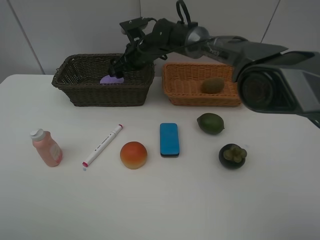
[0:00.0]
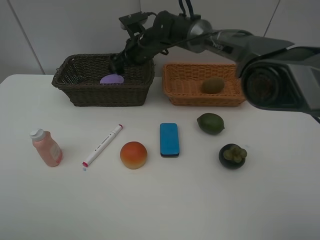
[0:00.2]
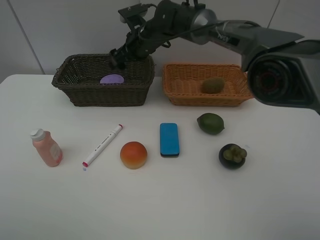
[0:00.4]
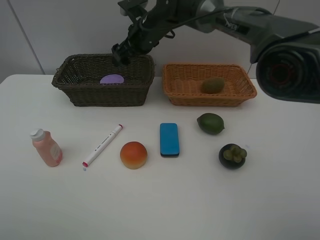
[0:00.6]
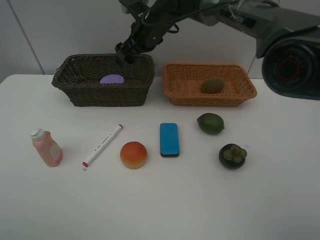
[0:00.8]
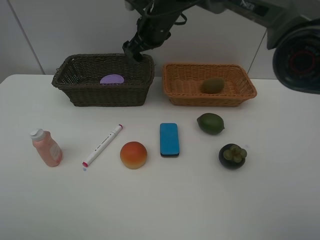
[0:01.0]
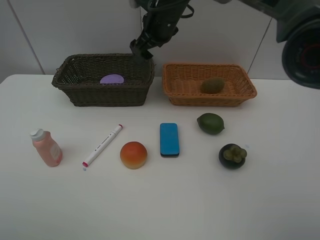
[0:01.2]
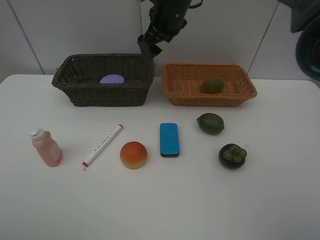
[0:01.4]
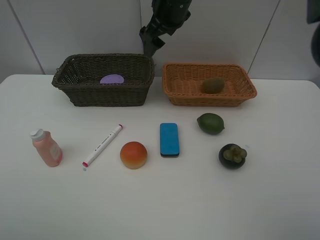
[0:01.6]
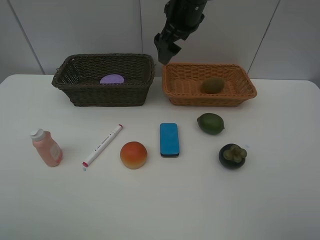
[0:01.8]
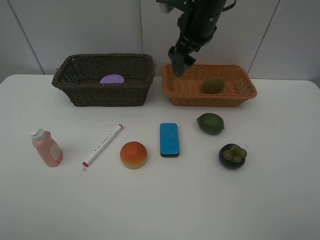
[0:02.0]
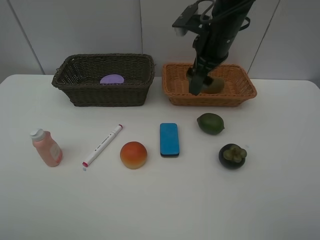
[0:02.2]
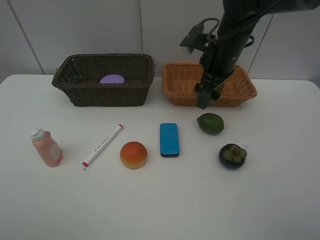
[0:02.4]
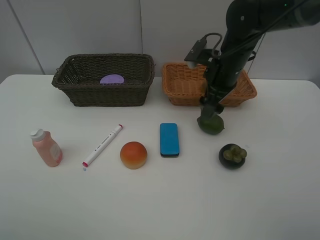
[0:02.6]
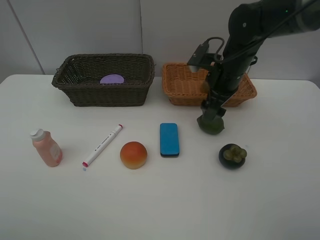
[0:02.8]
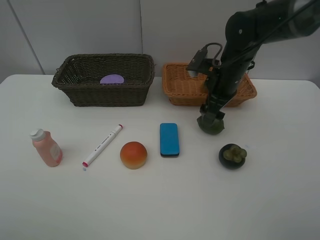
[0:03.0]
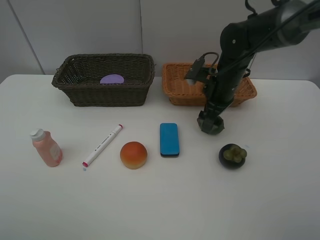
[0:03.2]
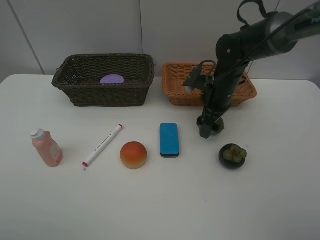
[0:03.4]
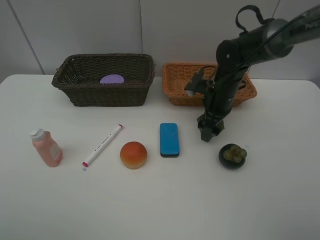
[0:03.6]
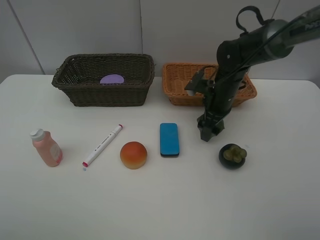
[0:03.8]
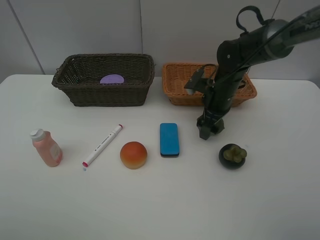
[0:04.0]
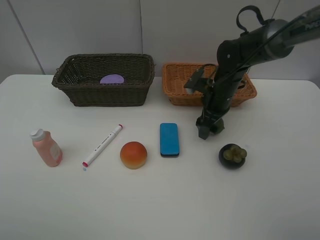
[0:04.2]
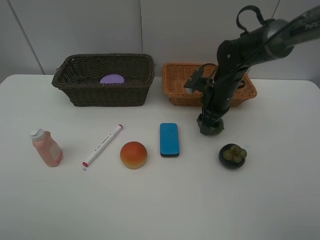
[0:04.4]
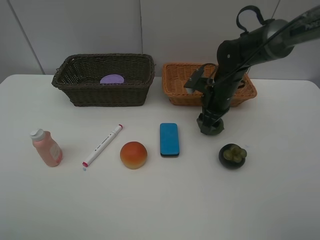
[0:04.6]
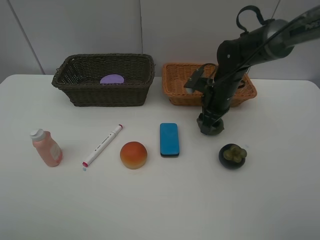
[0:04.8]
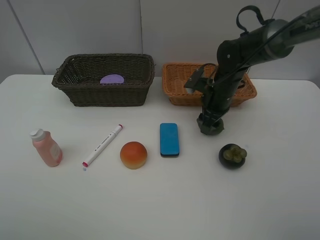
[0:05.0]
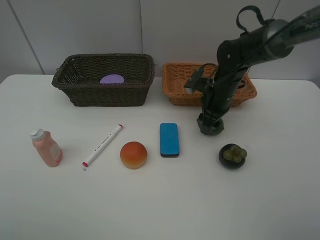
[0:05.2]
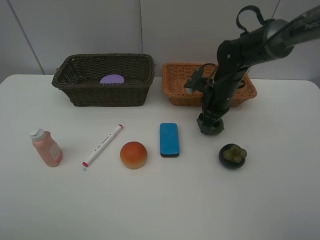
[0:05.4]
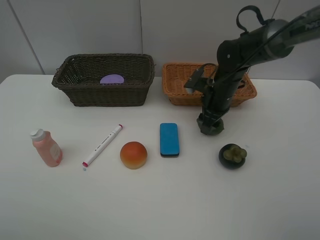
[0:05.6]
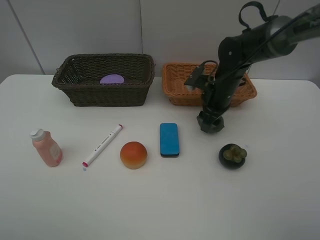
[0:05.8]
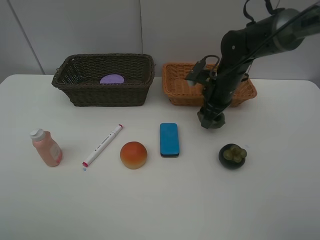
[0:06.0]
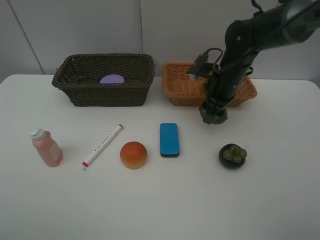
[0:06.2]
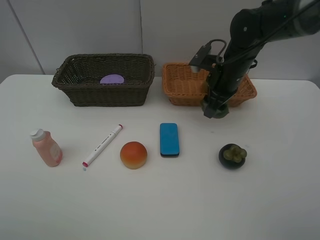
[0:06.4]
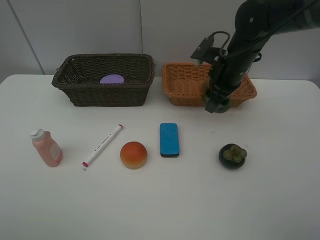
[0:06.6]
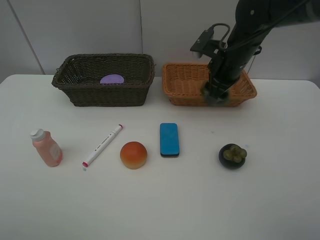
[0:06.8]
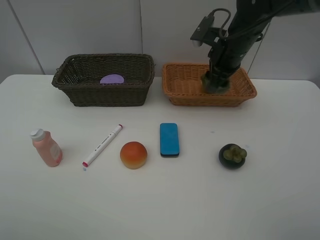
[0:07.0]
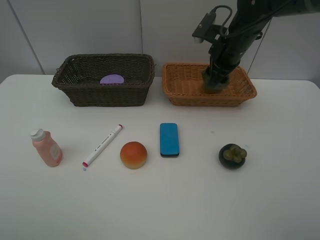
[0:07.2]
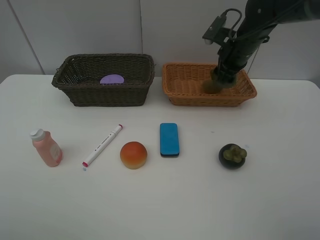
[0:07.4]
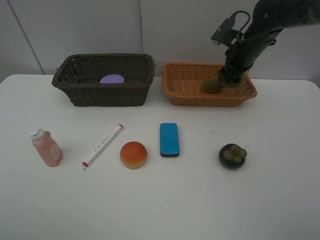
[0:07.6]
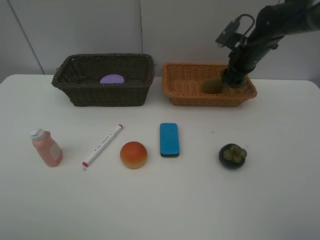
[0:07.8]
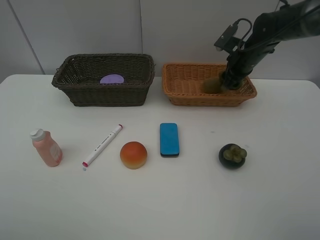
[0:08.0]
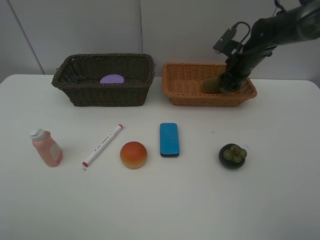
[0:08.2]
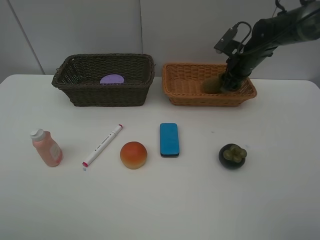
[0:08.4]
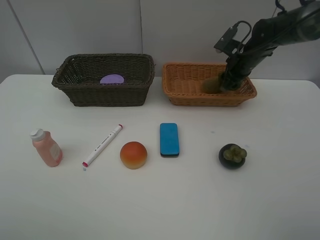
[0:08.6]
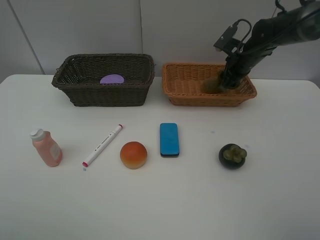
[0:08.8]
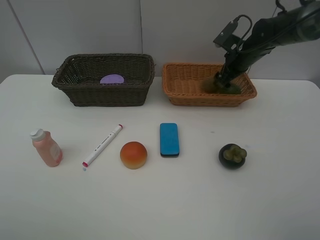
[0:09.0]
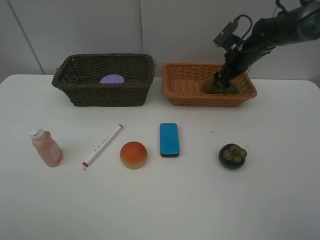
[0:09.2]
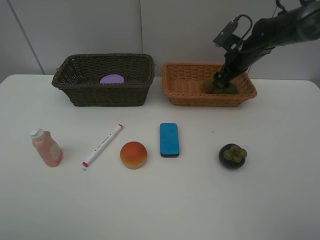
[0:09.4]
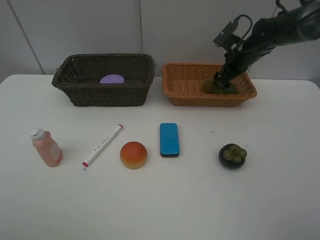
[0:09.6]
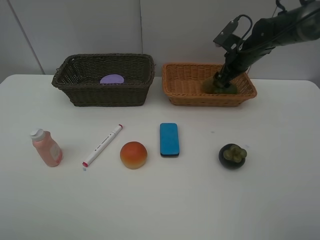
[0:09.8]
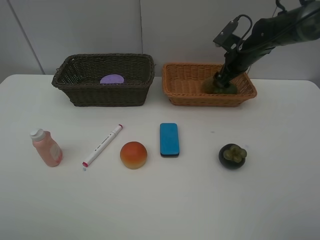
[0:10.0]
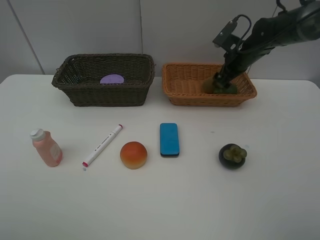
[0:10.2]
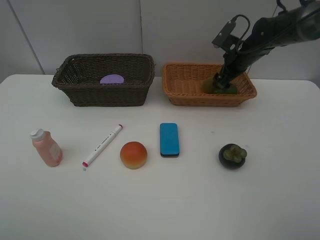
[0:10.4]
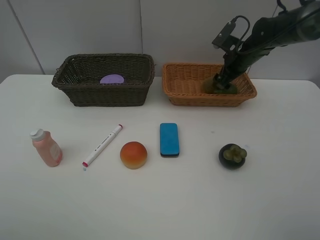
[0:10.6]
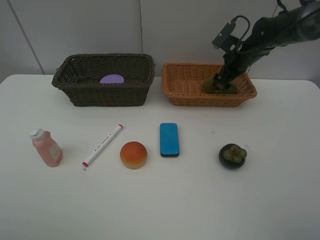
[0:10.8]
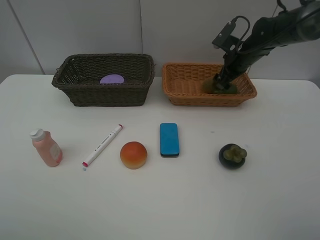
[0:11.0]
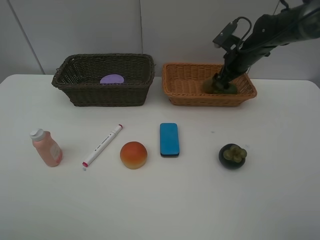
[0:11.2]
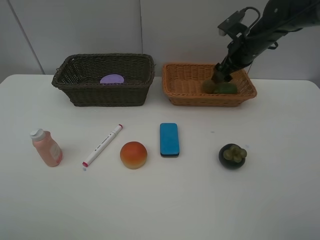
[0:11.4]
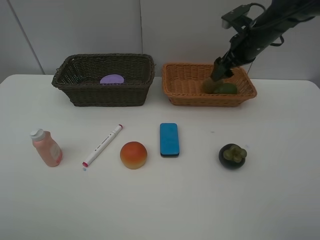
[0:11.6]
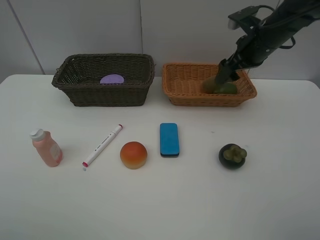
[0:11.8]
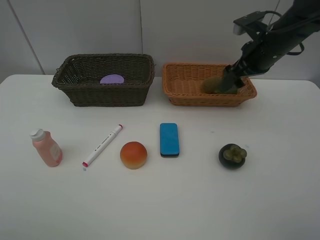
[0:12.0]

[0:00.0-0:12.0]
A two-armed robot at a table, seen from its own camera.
Task of the whole recording: Place multiple objects separately in different baskets.
Step, 0:00.4 to 0:05.8: Pick up the lime with right gripper.
Step, 0:06.0 to 0:11.4: Place the lime in the light basket with right gripper.
0:00.0 to 0:01.6: The right gripper goes some 15 cm upward, to the right and backward.
0:01.6 to 0:03.0: The right gripper travels downward, to the right and backward by some 20 cm.
0:03.0 to 0:04.4: The right gripper closes.
0:04.4 to 0:06.0: The grippers stay close to where they were, moving slightly.
0:06.0 to 0:07.6: The right gripper travels to the right, forward and upward by roughly 10 cm.
0:07.6 to 0:09.0: The right gripper opens.
0:09.0 to 0:10.4: The two grippers keep their place.
0:10.4 to 0:12.0: The right gripper is displaced backward and upward by some 10 cm.

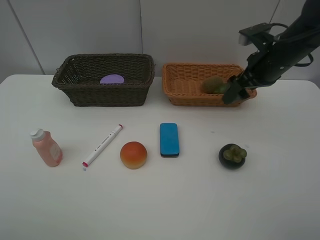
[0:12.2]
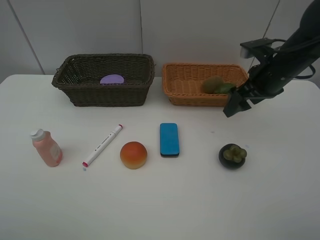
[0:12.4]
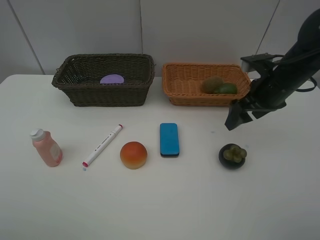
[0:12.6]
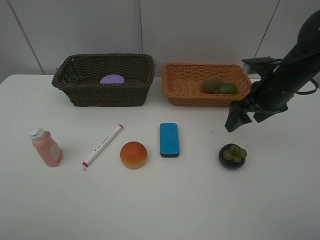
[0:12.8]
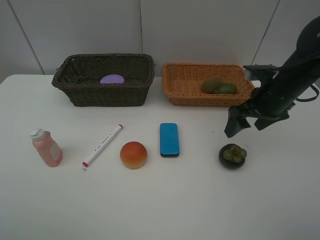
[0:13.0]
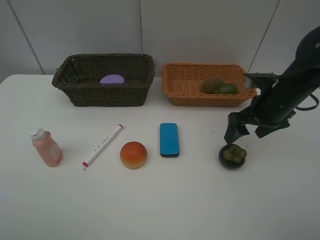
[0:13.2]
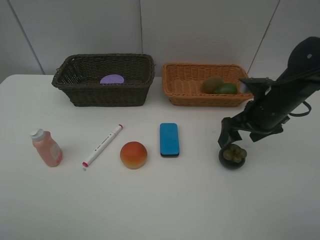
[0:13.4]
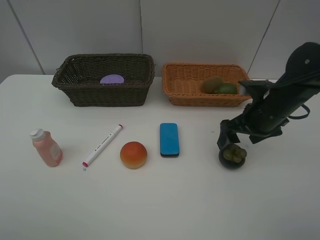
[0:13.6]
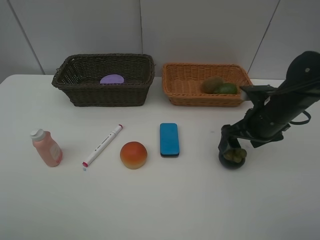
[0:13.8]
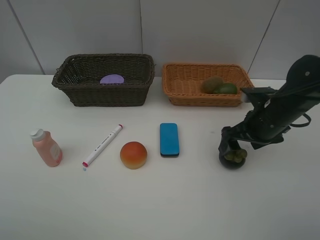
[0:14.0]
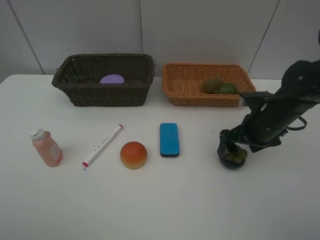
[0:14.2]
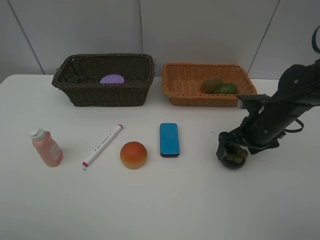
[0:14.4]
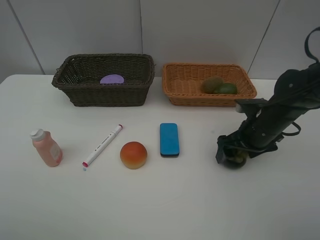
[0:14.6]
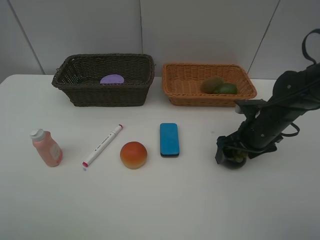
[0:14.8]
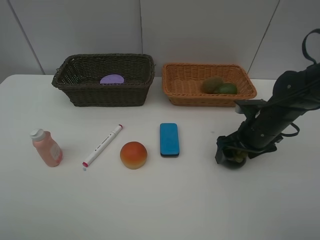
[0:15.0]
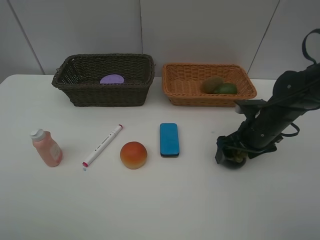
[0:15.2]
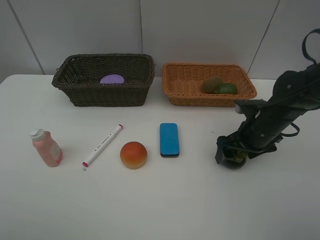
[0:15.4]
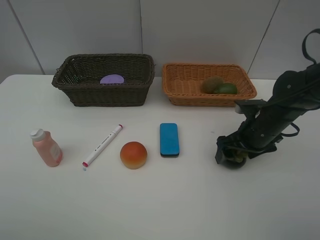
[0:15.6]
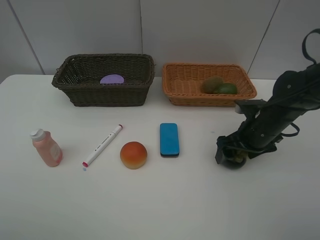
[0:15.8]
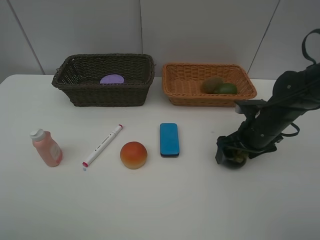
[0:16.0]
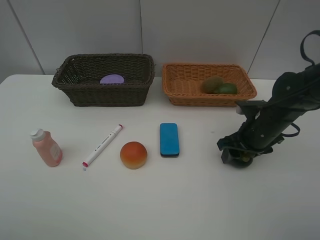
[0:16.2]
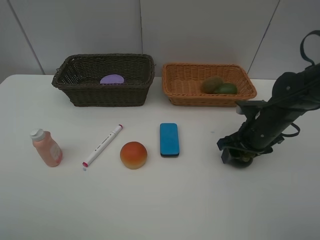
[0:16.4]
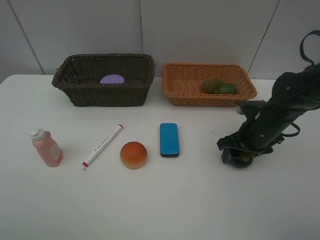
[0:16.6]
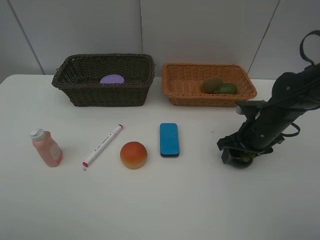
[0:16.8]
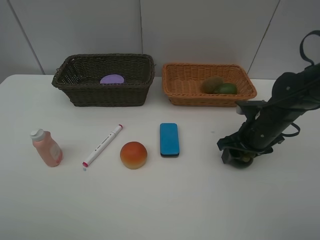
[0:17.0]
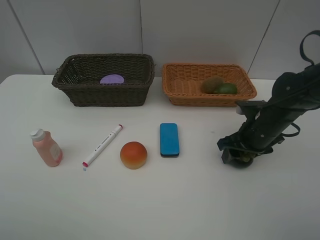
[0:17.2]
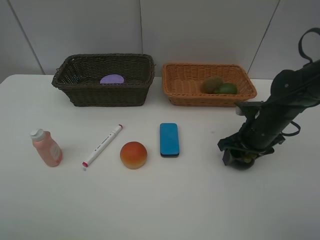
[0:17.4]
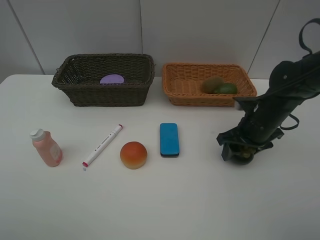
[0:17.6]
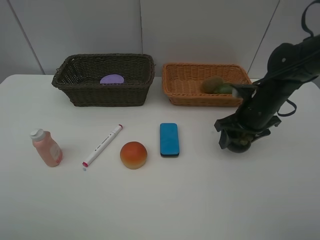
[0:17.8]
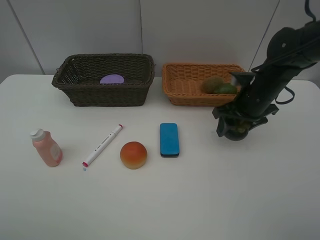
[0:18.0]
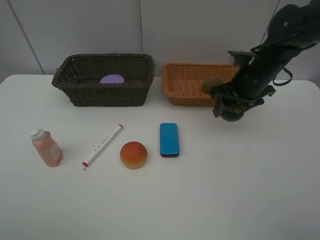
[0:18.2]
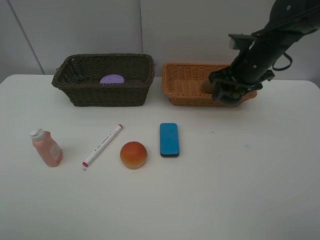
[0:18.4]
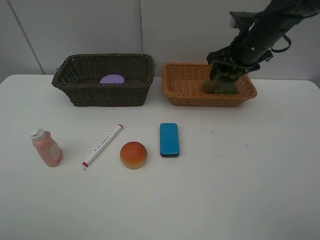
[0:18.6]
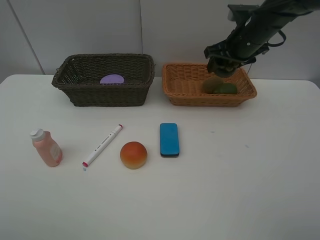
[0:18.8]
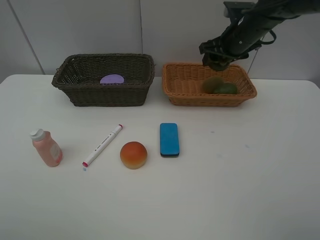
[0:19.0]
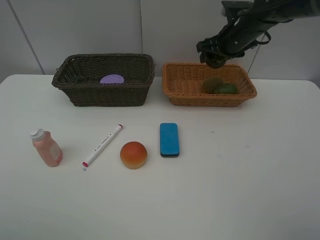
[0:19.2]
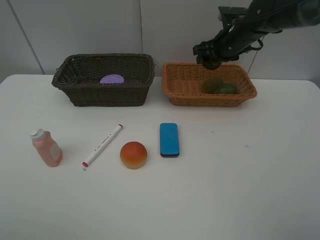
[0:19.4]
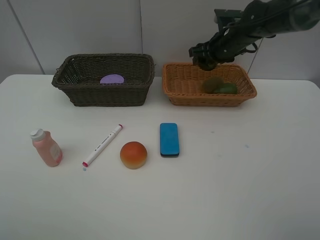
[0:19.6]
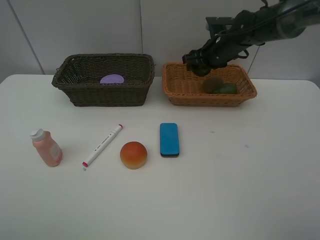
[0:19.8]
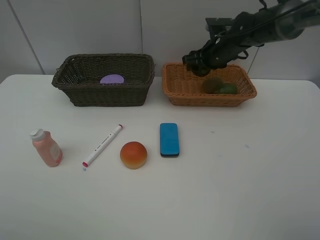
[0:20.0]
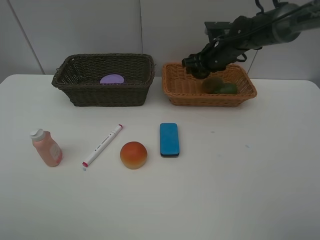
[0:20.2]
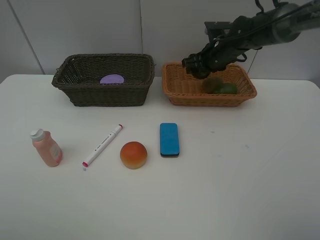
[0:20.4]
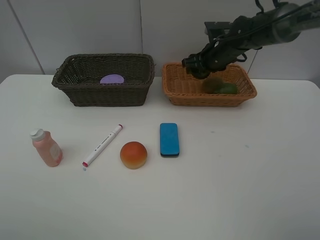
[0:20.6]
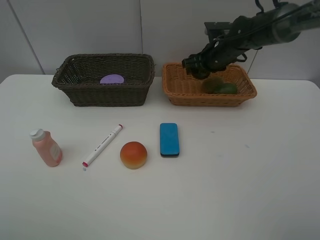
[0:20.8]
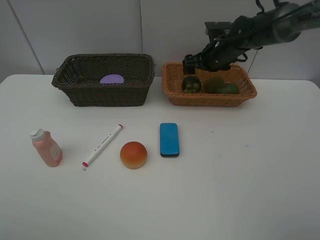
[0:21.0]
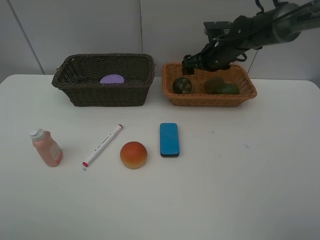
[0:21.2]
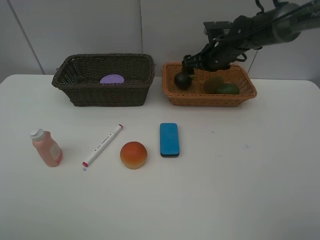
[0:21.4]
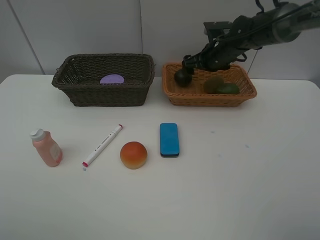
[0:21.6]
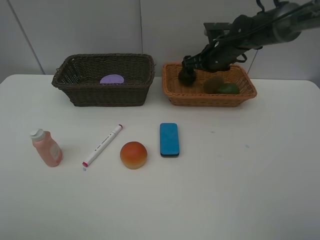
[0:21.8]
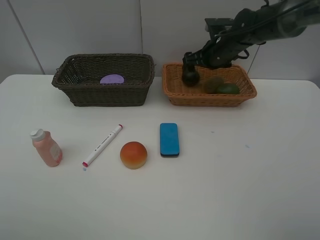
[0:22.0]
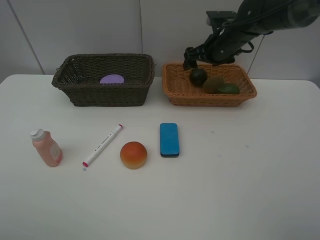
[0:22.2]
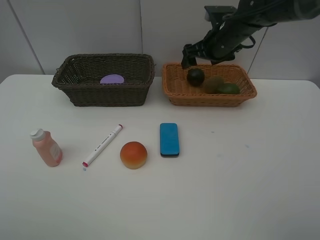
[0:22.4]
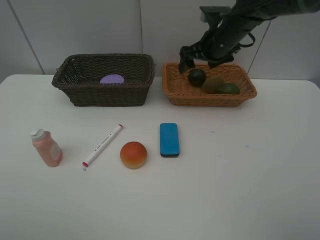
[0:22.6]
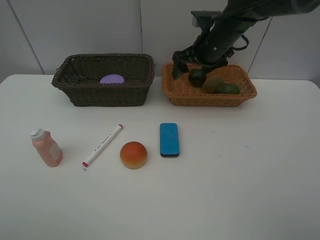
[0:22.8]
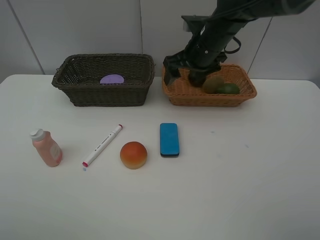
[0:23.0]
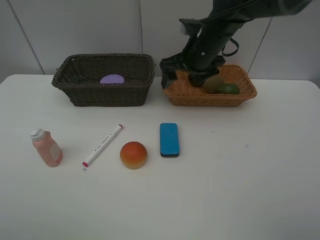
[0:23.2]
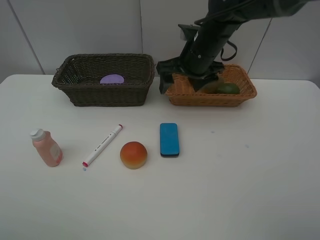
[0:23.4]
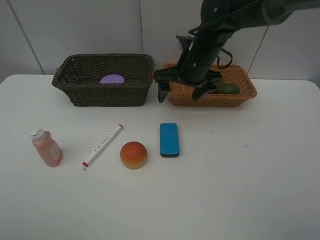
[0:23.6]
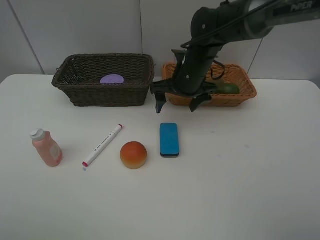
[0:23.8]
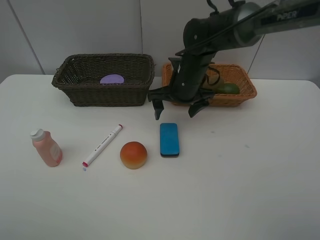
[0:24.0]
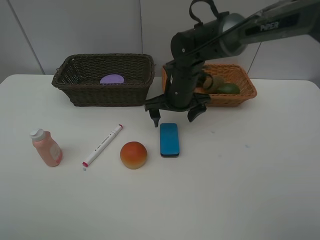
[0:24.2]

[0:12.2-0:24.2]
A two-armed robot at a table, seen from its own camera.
Task of the whole recording: Place multiple objects separately in different baskets.
Step, 0:12.2 to 0:17.6: Pick up the mangosteen with right gripper.
Step, 0:17.8 to 0:21.4: Place the mangosteen in the light basket with right gripper.
0:12.2 to 0:13.8: The right gripper goes some 10 cm downward and backward.
0:13.8 to 0:15.2: The grippers move only a little.
0:15.2 to 0:16.6: The right gripper closes its fingers.
0:16.6 to 0:18.2: The right gripper goes about 10 cm upward and forward.
0:18.2 to 0:19.8: The right gripper heads forward, covering about 10 cm.
0:19.8 to 0:21.2: The right gripper opens its fingers.
0:21.2 to 0:22.6: The right gripper heads upward, covering roughly 5 cm.
0:22.6 to 0:24.2: The right gripper is displaced downward, to the left and backward by some 15 cm.
